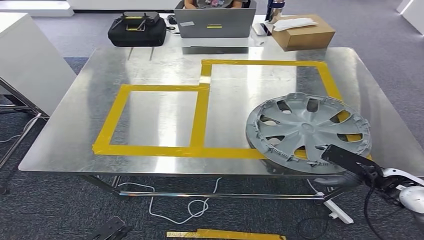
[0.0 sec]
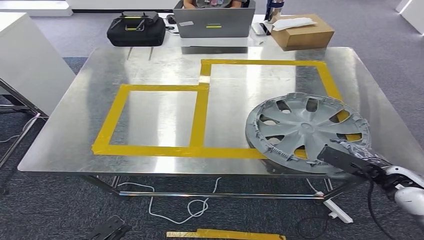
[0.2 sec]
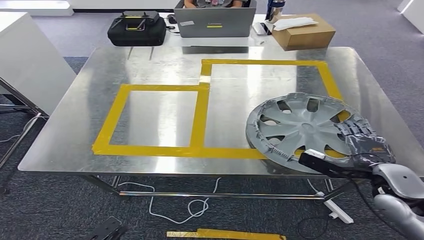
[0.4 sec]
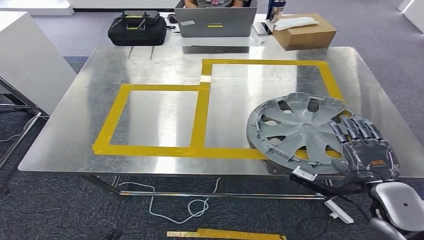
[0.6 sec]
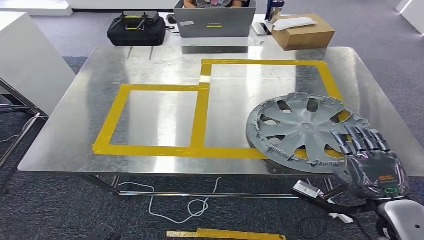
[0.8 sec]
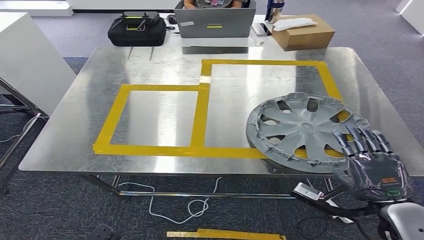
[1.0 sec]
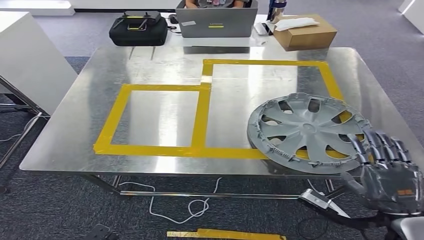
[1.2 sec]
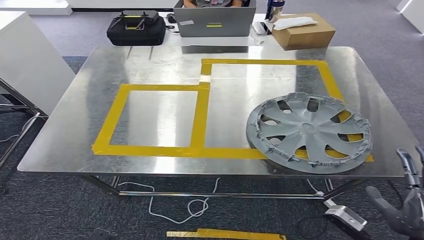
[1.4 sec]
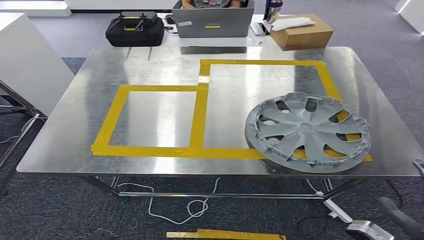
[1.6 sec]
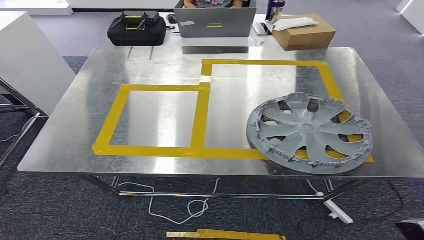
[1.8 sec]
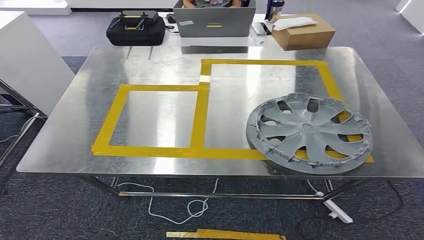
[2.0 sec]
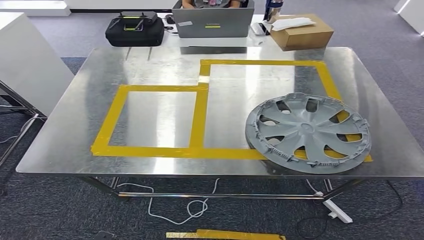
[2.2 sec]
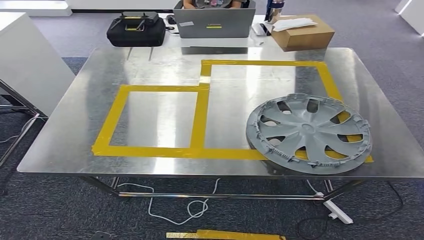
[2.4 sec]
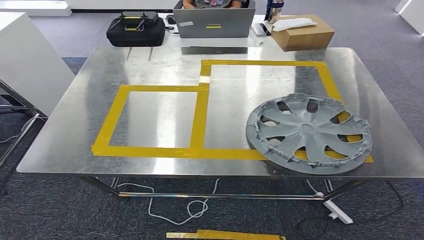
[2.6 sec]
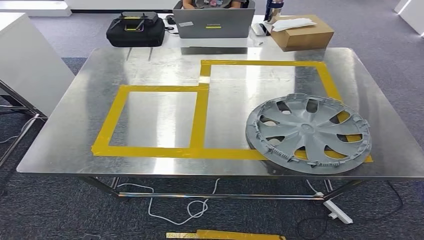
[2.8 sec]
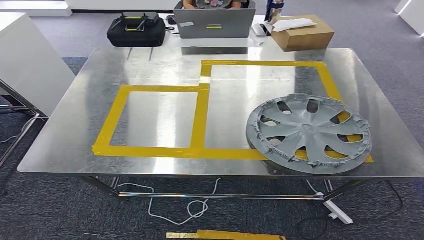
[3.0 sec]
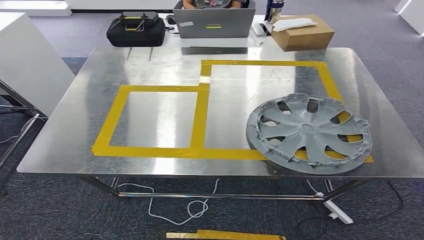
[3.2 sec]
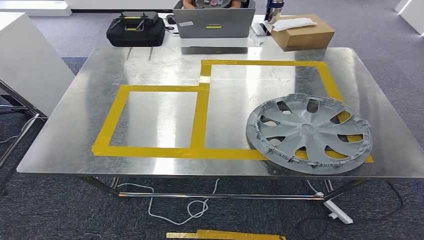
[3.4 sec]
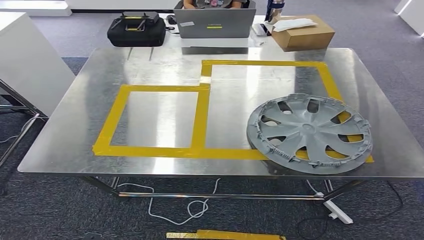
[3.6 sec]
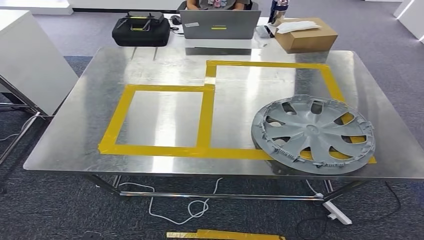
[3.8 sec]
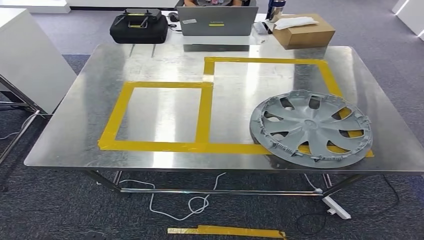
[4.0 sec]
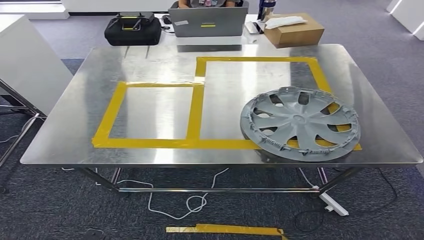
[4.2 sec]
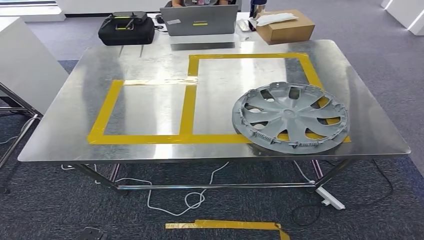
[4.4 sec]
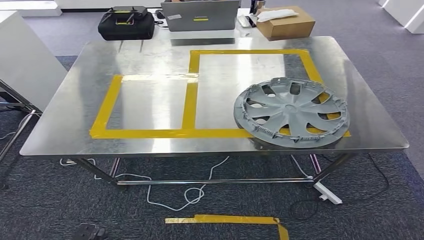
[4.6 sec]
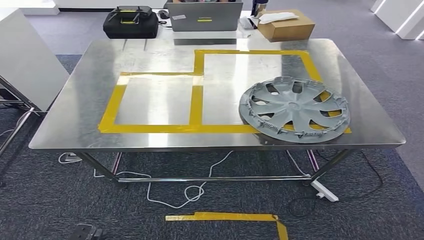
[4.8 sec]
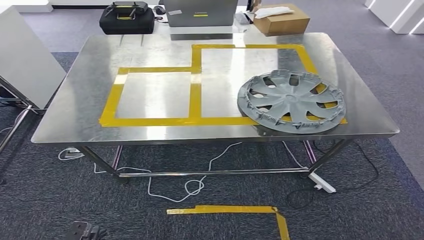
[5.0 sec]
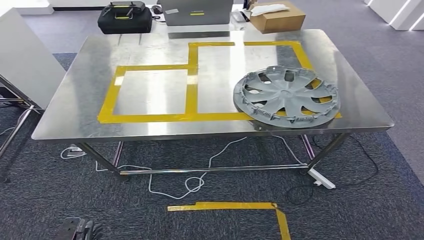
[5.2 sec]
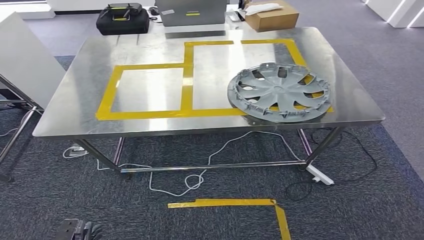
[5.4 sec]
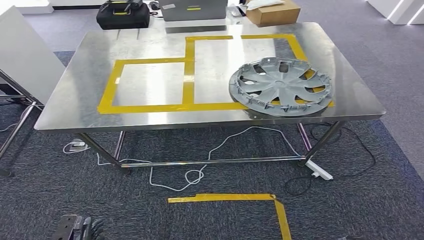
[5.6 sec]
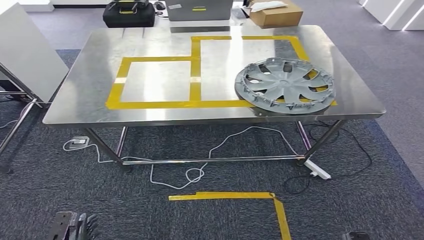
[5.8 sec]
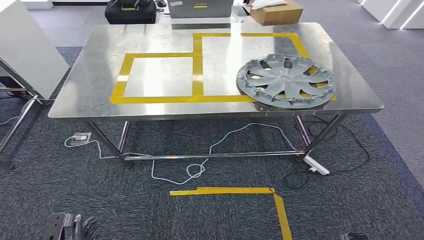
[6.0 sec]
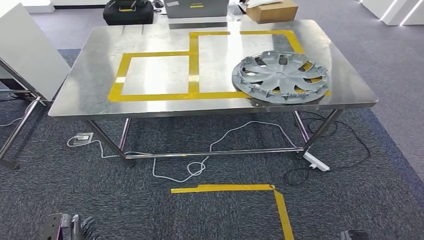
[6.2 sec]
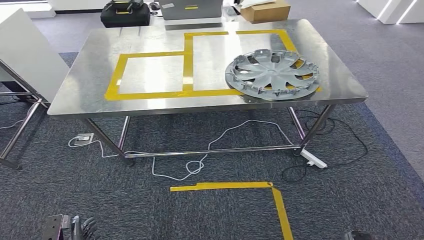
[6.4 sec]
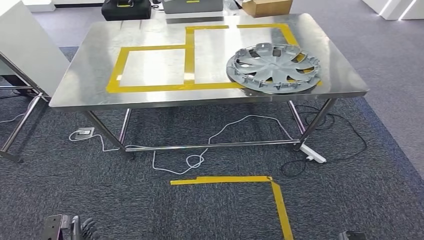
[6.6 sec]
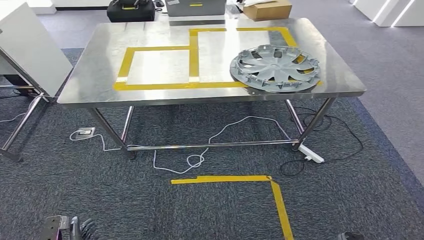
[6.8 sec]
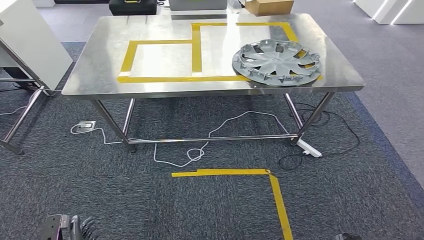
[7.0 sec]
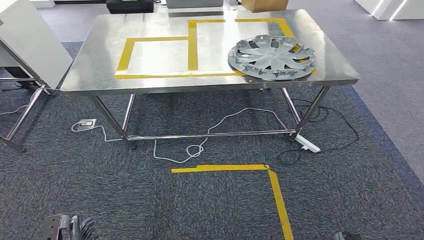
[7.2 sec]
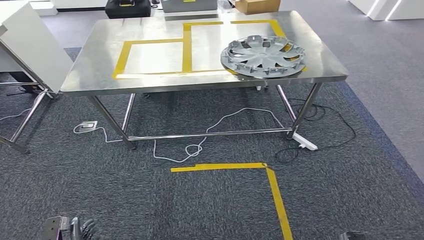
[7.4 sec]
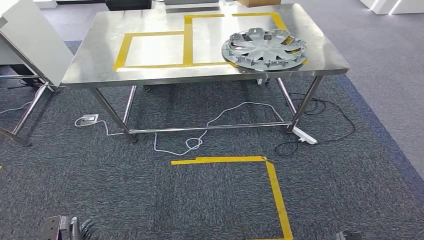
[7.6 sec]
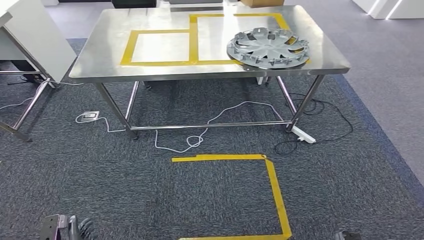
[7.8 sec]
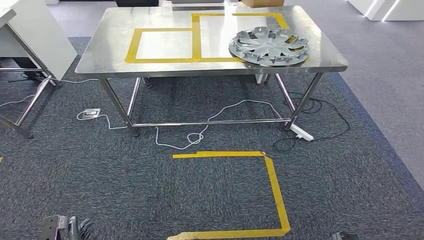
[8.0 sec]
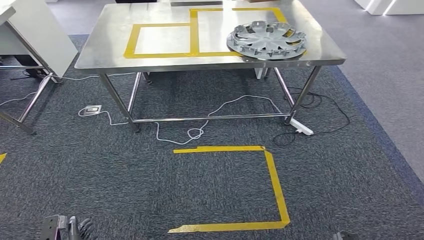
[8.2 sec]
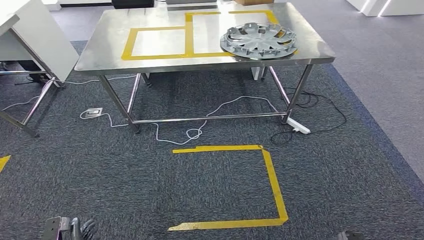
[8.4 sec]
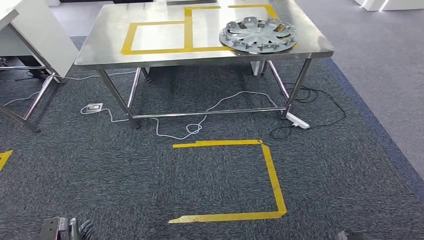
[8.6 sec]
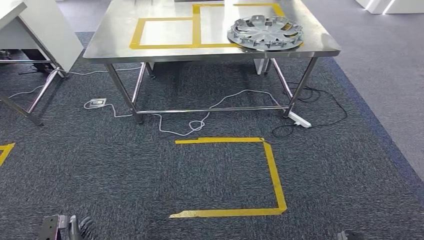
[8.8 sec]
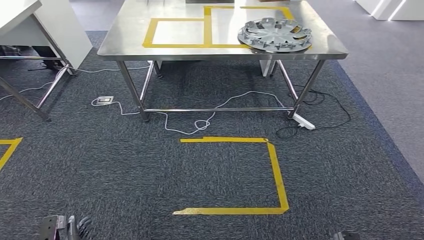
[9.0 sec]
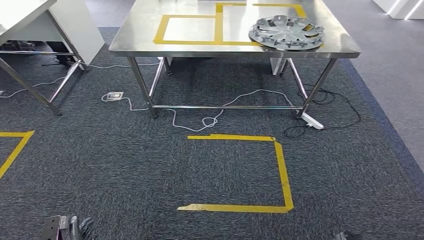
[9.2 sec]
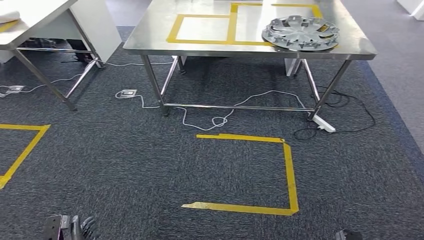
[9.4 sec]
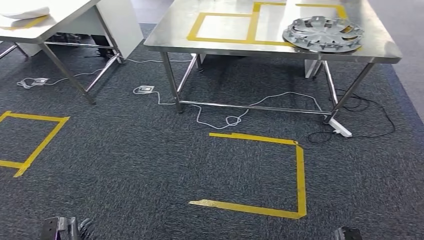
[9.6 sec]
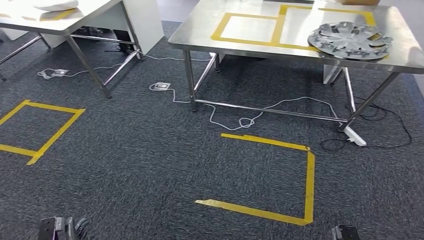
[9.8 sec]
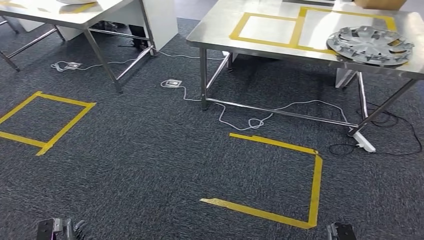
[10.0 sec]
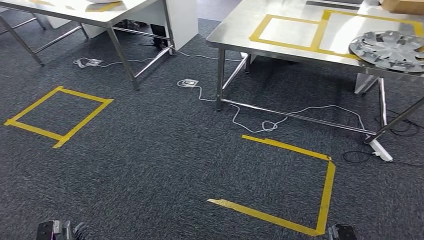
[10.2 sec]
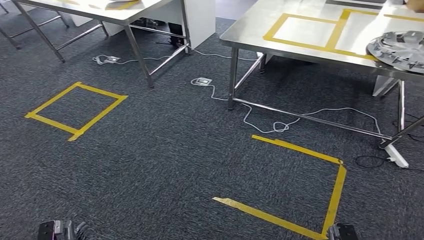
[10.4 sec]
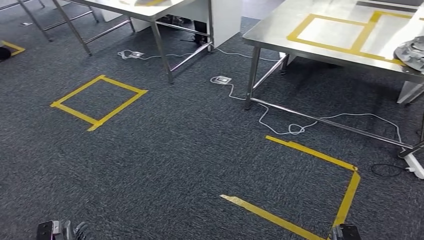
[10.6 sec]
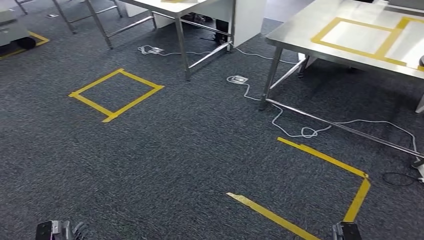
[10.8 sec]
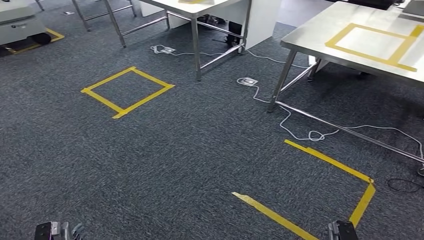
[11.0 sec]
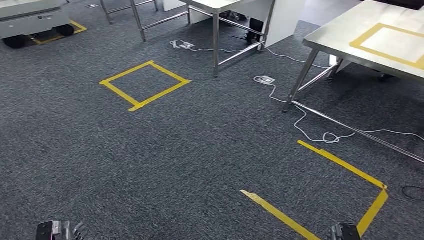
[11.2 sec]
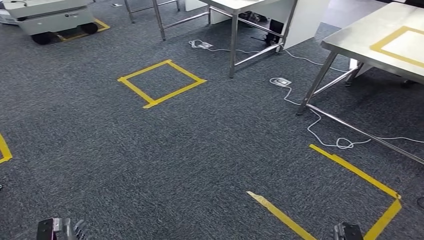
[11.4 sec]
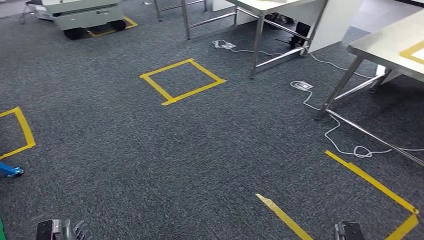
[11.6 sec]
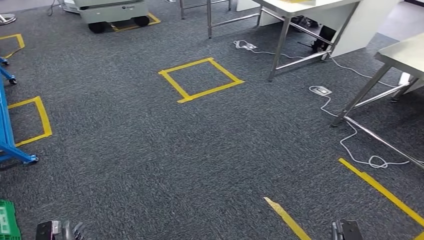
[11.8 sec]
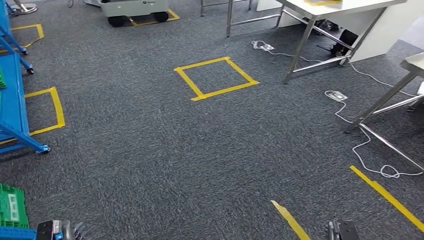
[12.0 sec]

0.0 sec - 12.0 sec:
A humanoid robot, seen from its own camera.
0.0 sec - 1.6 sec: The left hand moves backward, roughly 5 cm. The right hand is displaced backward by some 20 cm.
1.6 sec - 3.0 sec: The right hand heads downward, covering roughly 20 cm.

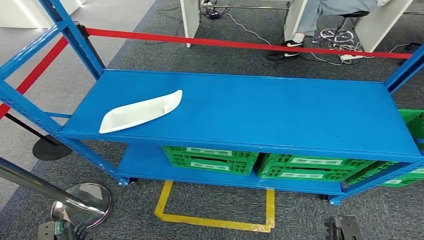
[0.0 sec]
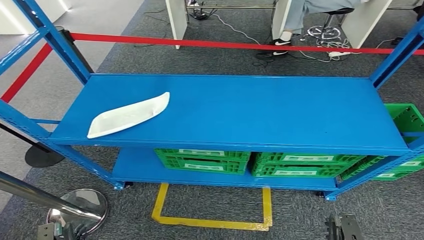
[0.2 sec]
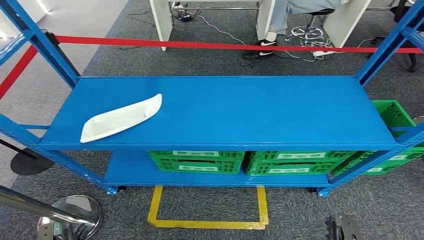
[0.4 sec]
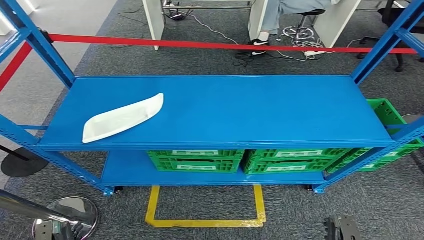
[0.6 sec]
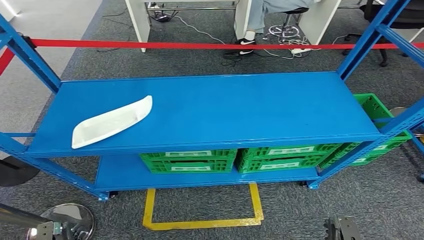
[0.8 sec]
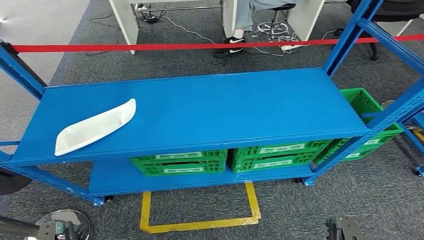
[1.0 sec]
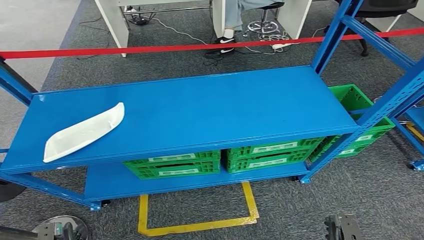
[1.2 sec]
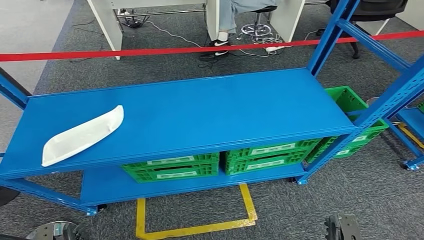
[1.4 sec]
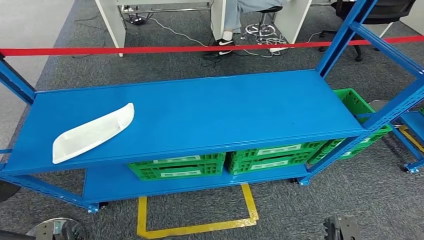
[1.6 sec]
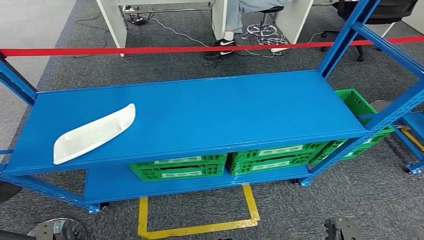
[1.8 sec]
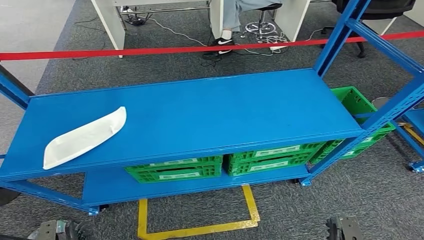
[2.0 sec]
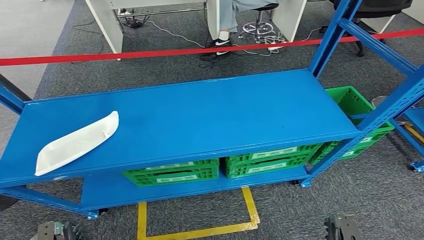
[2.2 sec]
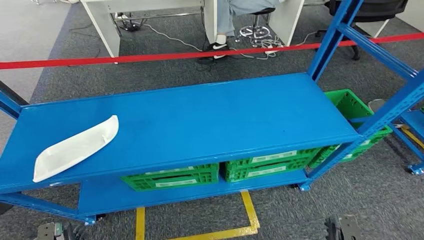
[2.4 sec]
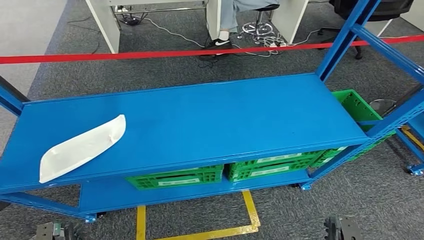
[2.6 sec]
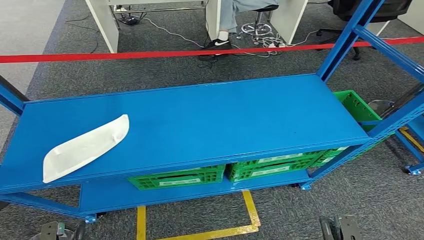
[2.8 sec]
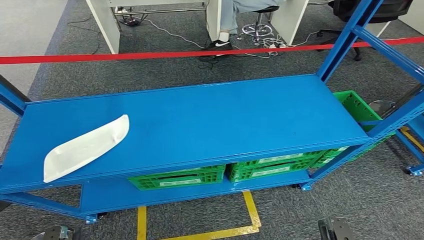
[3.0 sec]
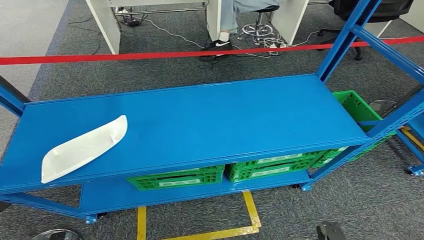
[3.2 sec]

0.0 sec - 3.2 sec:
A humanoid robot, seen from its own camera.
Step, 0.0 sec - 3.2 sec: Move to the initial position of the workbench.
